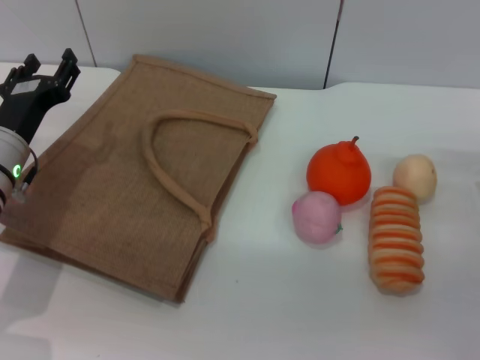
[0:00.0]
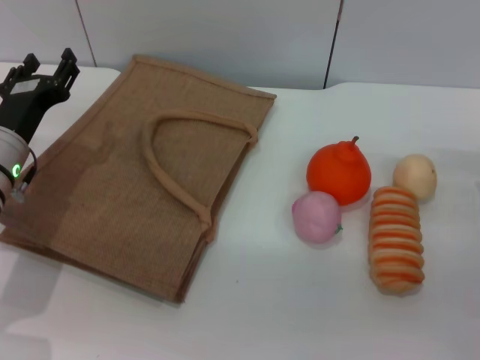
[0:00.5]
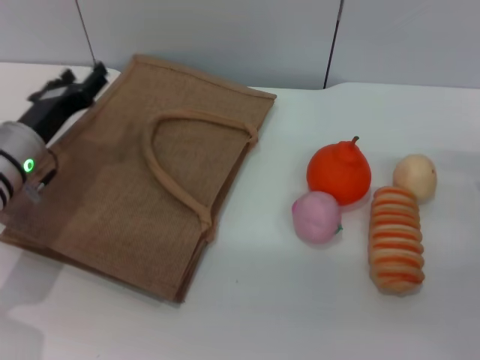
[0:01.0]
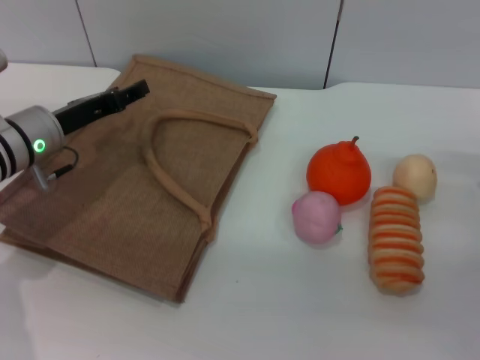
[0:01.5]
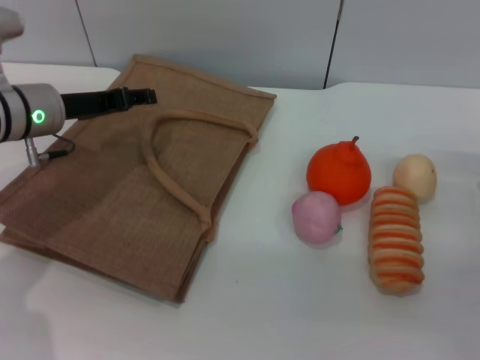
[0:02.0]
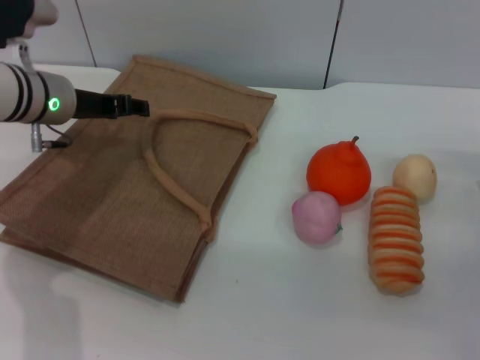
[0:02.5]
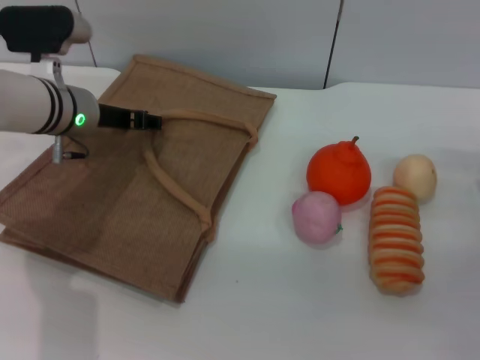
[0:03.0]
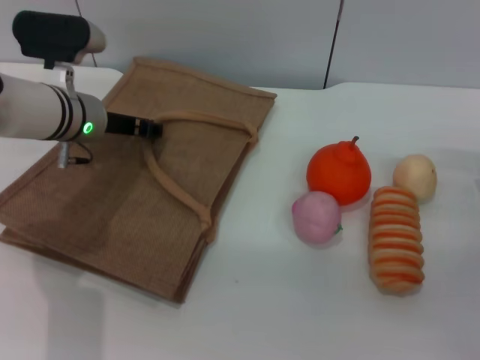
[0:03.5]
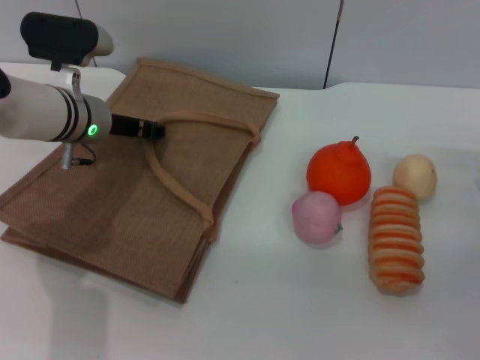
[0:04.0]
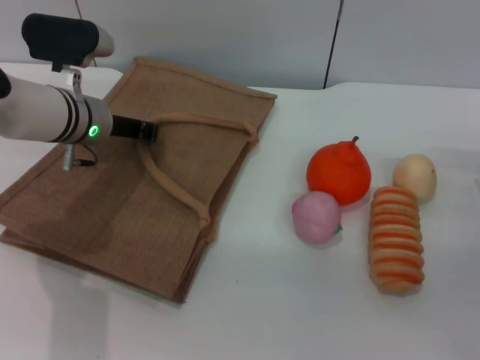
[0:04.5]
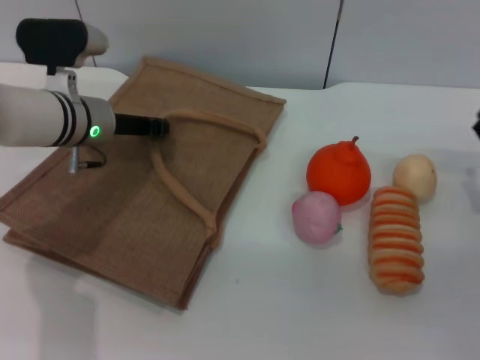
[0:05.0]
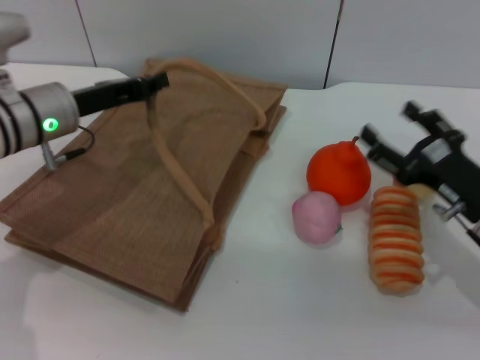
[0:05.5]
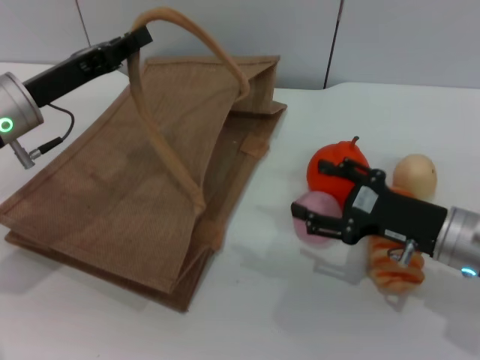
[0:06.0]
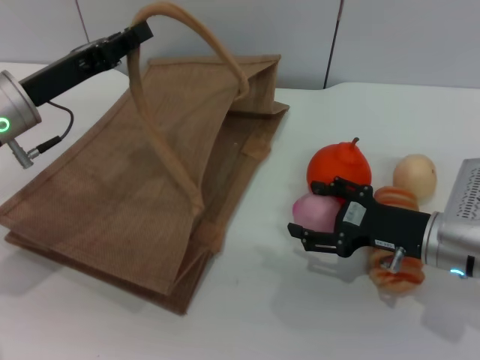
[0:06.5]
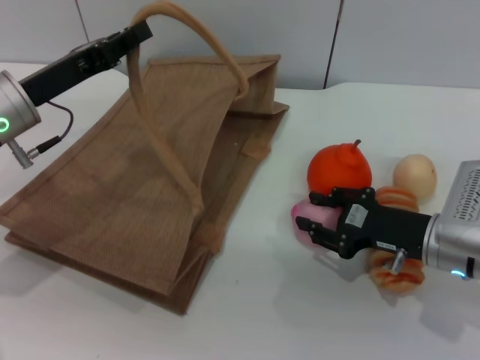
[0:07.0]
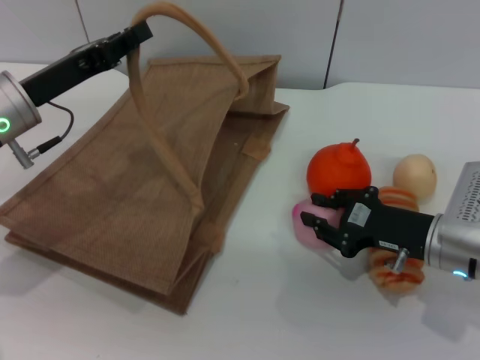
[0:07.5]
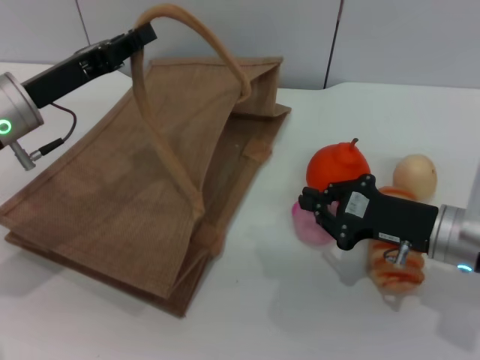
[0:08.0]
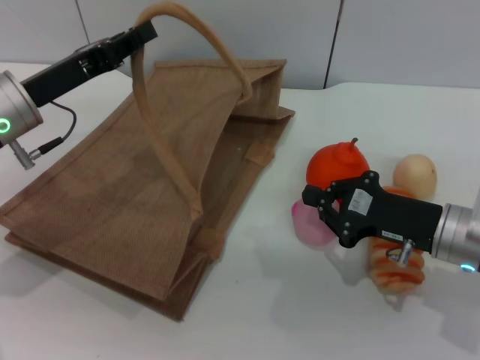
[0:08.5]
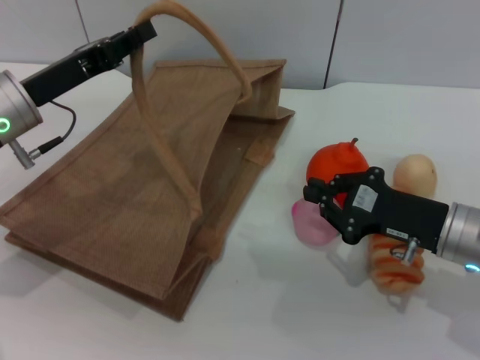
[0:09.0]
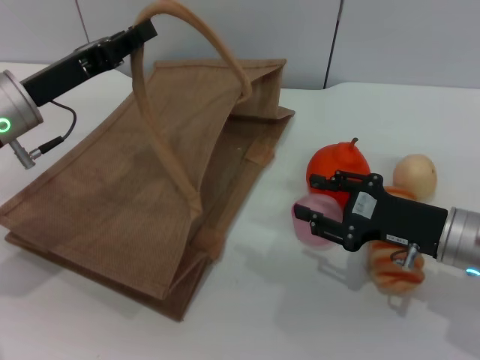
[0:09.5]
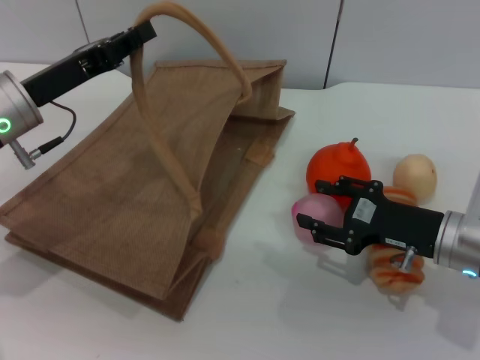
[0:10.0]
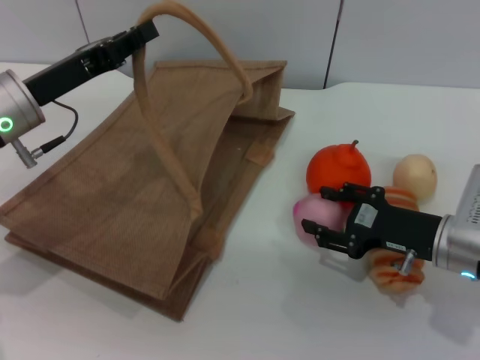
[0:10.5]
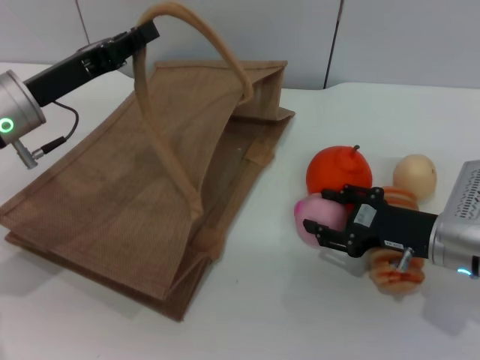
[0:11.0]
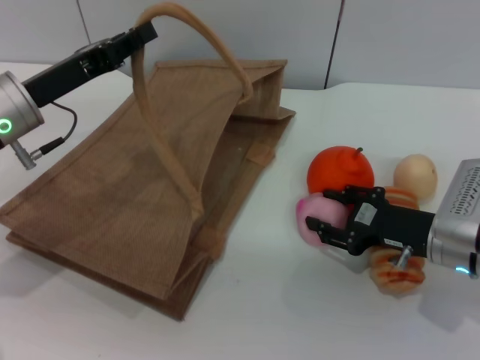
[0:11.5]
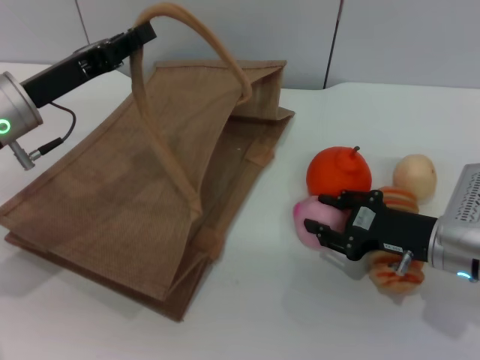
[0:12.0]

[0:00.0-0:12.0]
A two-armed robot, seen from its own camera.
Task of the whole recording: pick up the peach from the table and place it in the brown handbag.
Step, 0:00.0 to 0:04.5: Lift the woven bag with the left gripper to open it.
0:00.0 to 0:02.0: The left gripper shifts some 10 cm forward and upward.
0:02.0 to 0:04.0: The left gripper changes place by approximately 5 cm, and closes its fingers.
0:04.0 to 0:06.0: The right gripper moves to the left, some 5 cm. Meanwhile the left gripper heads backward and to the left, covering some 10 cm, and closes.
0:06.0 to 0:08.0: The right gripper closes up.
0:08.0 to 0:10.0: The right gripper opens its fingers.
0:10.0 to 0:12.0: The grippers make only small movements.

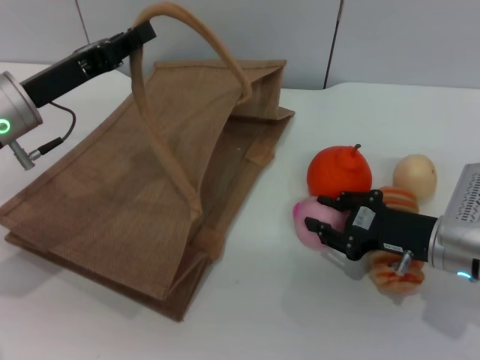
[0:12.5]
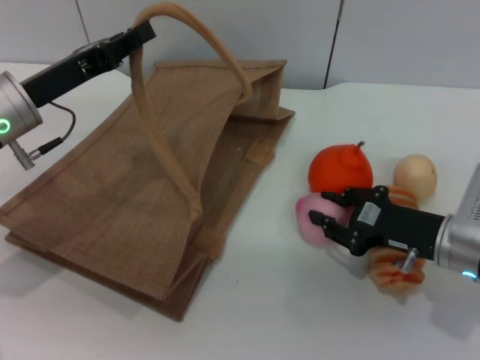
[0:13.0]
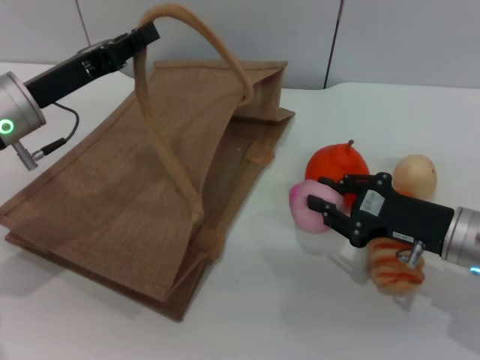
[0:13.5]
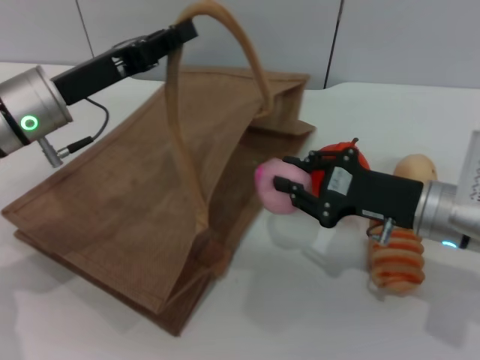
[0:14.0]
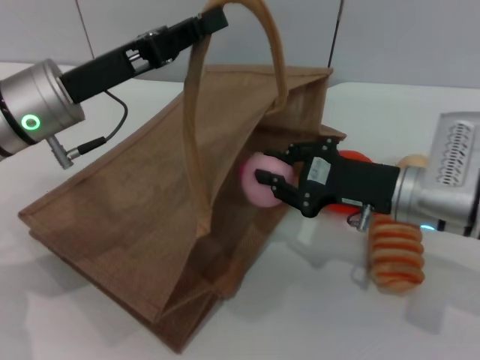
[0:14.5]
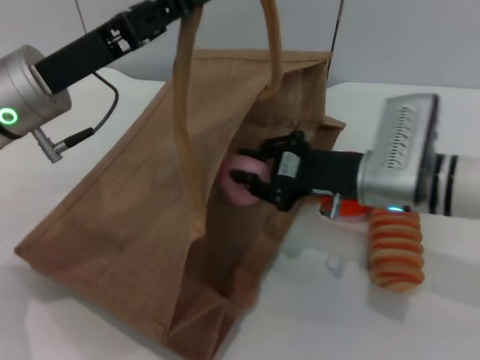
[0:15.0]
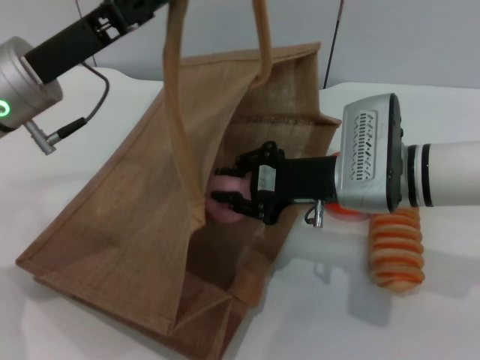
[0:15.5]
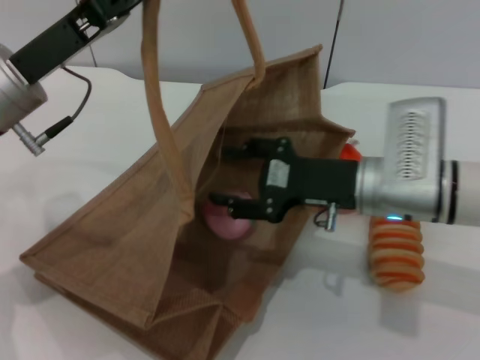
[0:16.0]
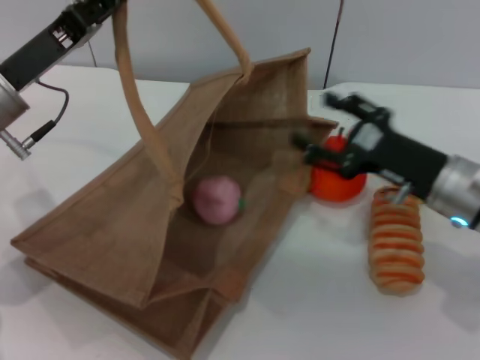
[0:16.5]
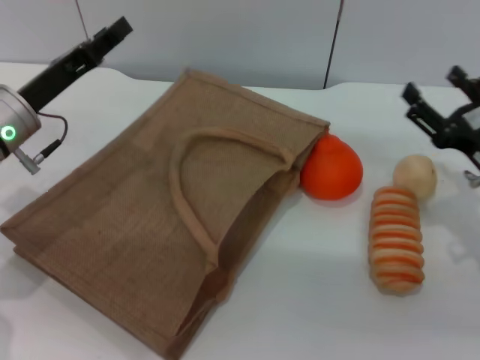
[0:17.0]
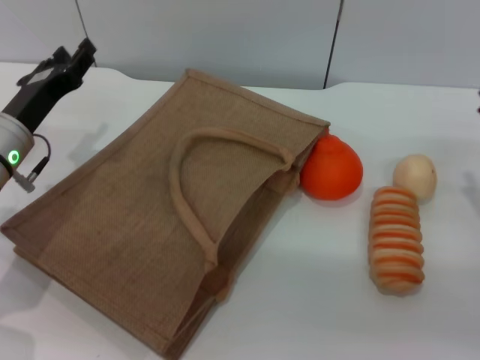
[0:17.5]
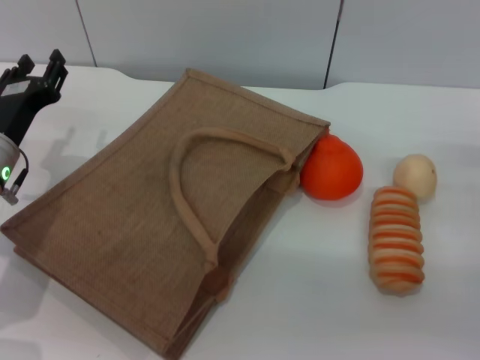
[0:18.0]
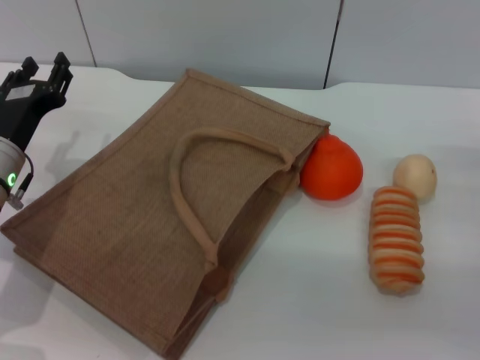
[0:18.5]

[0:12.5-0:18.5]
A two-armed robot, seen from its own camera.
Task of the whole recording: pick up the peach from the table and place it in the brown handbag.
Step, 0:14.0 to 0:16.0: Place the peach into the woven bag with the right gripper.
0:12.5 to 0:14.5: The right gripper ends up roughly 5 cm from where it was, while the left gripper ends up approximately 5 cm from where it was.
0:14.5 to 0:16.5: The right gripper opens. Meanwhile the left gripper moves about 5 cm.
0:16.5 to 0:18.5: The right gripper heads to the right, covering some 10 cm. Meanwhile the left gripper is displaced downward by some 10 cm, and opens up.
